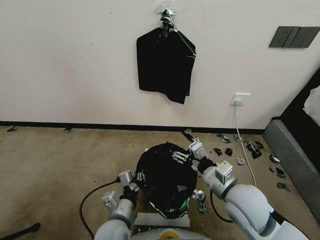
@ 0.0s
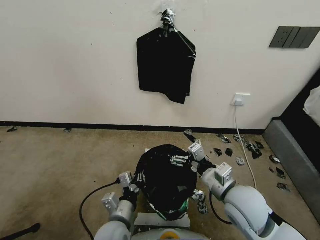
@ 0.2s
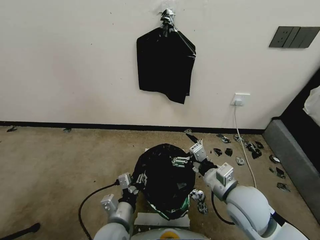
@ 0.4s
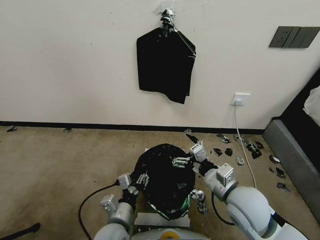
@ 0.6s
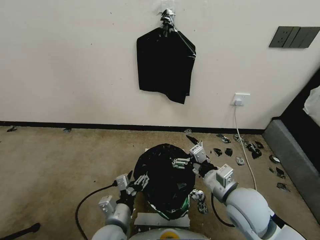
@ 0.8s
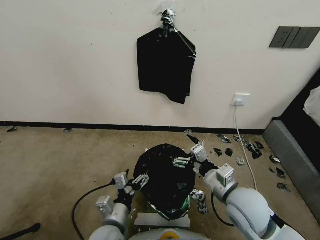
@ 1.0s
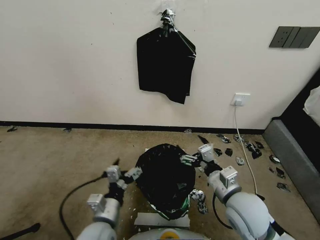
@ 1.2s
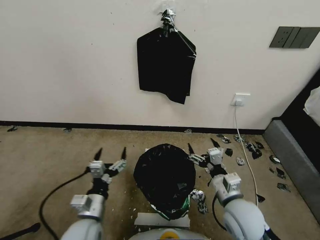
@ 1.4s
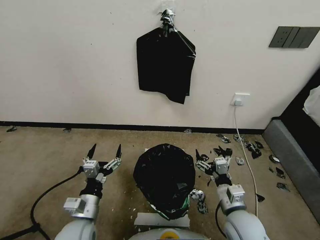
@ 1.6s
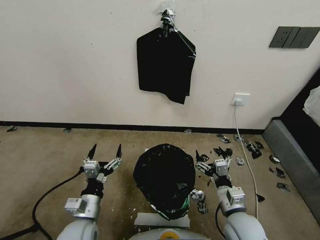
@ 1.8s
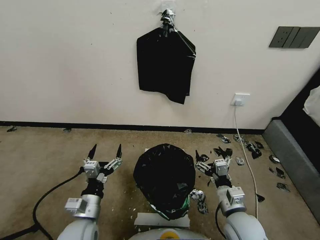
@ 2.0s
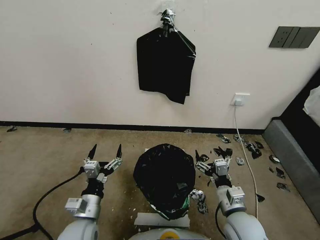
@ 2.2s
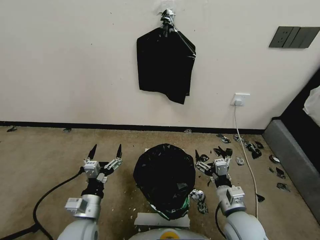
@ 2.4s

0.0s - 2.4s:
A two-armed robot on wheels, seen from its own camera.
Task of the whole recording: Place a trash bag onto the trash bin.
0.0s - 1.2s: The left gripper opens.
1.2s - 2.4s: The left gripper travels to the left by about 5 cm. Meanwhile the right gripper moves downward, roughly 10 cm.
